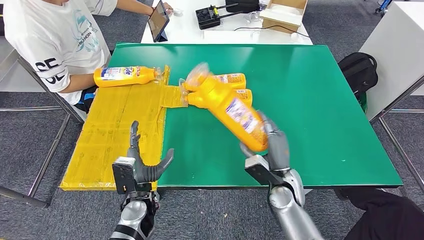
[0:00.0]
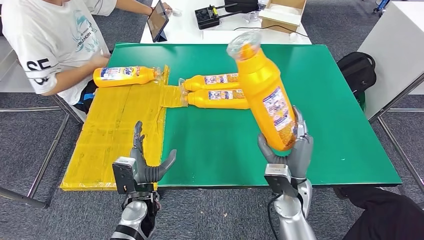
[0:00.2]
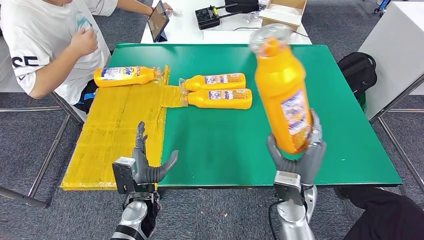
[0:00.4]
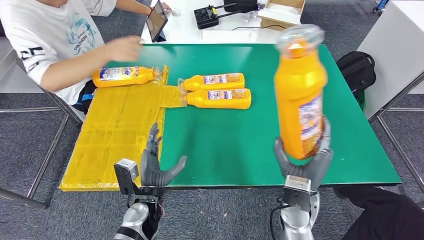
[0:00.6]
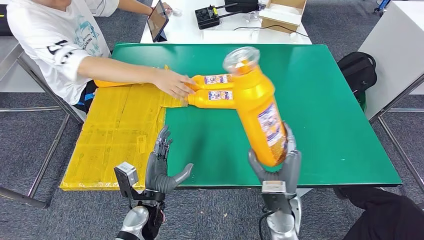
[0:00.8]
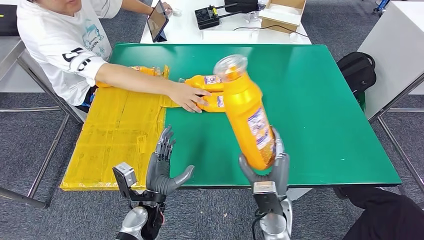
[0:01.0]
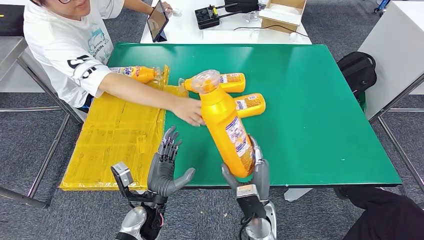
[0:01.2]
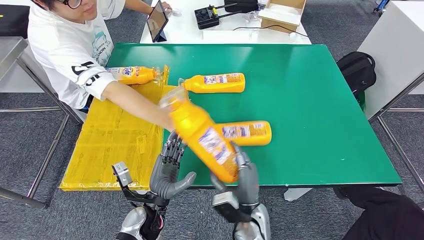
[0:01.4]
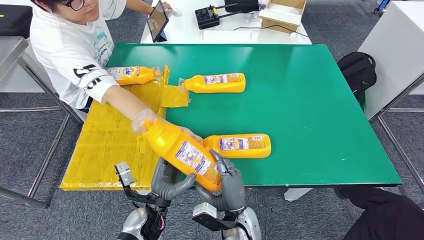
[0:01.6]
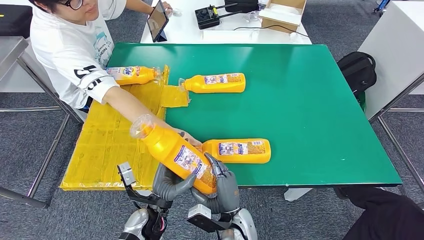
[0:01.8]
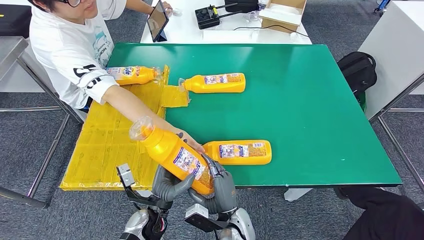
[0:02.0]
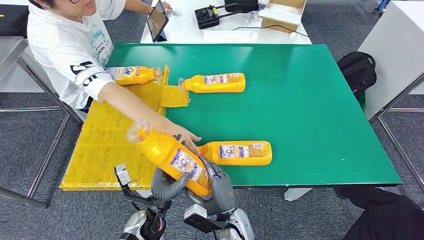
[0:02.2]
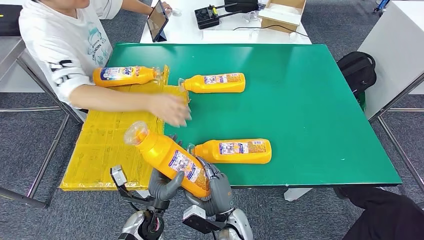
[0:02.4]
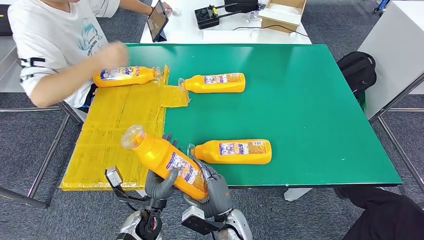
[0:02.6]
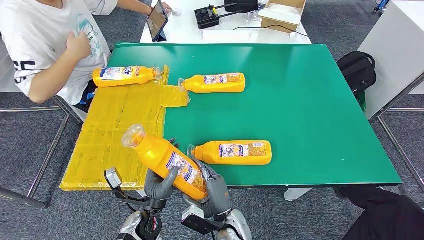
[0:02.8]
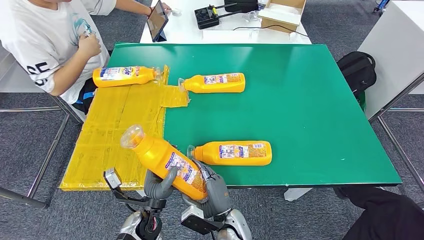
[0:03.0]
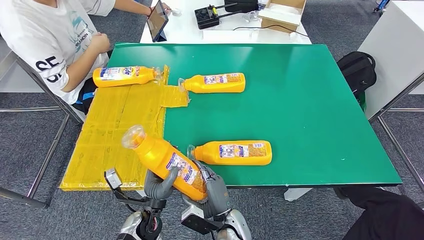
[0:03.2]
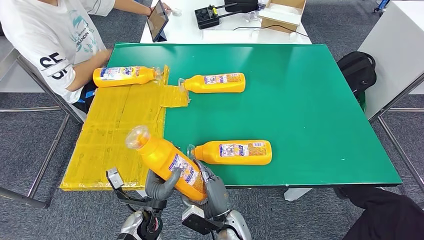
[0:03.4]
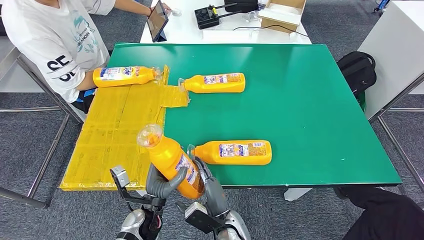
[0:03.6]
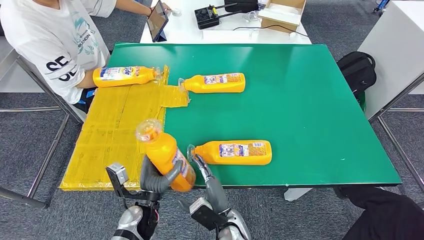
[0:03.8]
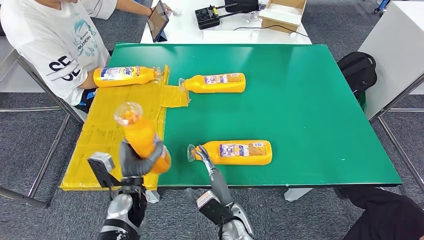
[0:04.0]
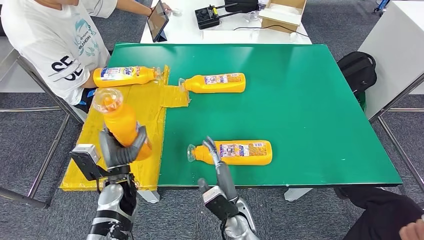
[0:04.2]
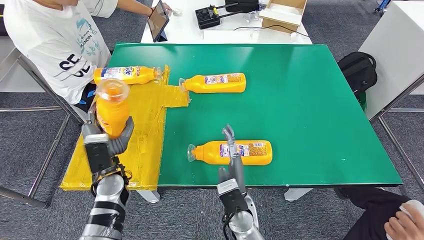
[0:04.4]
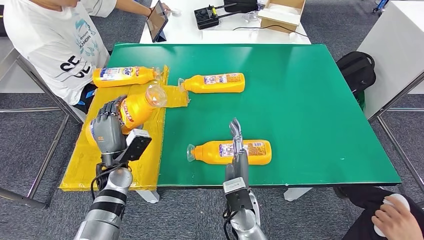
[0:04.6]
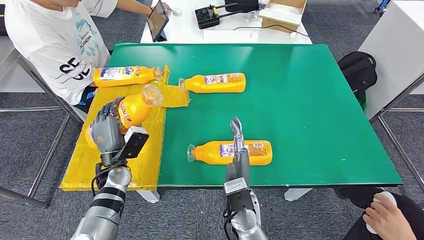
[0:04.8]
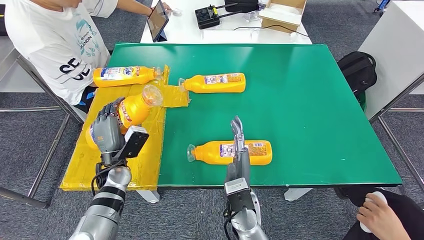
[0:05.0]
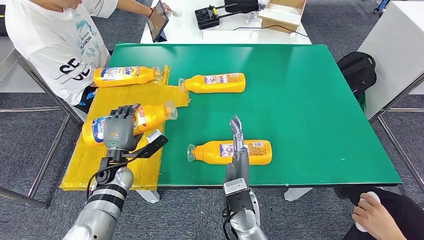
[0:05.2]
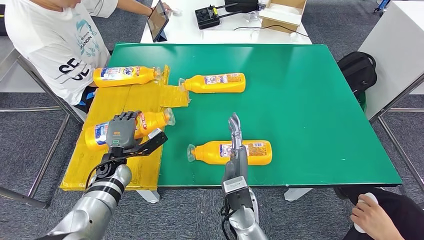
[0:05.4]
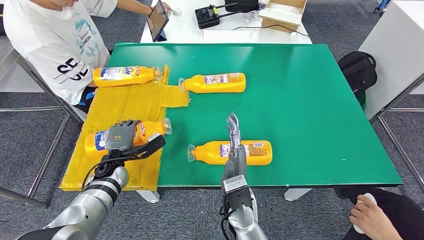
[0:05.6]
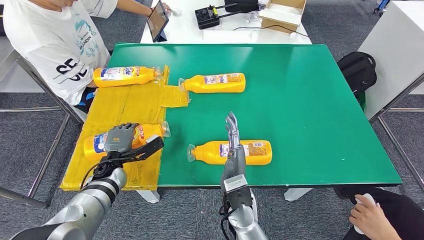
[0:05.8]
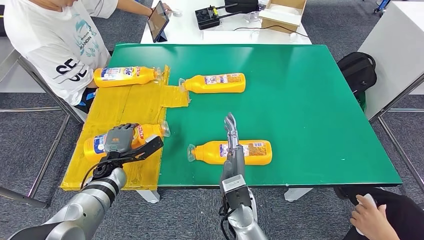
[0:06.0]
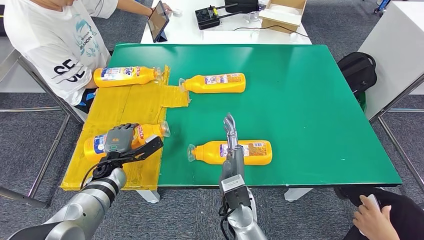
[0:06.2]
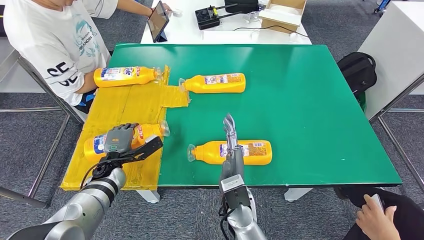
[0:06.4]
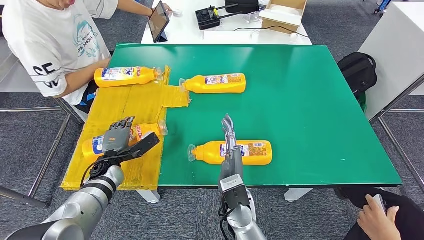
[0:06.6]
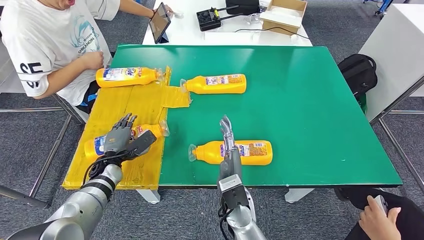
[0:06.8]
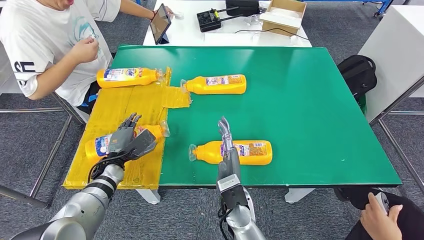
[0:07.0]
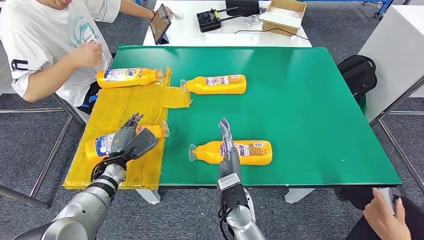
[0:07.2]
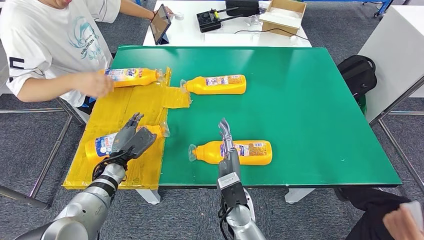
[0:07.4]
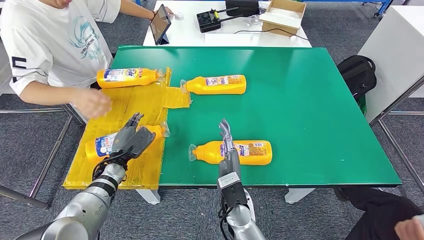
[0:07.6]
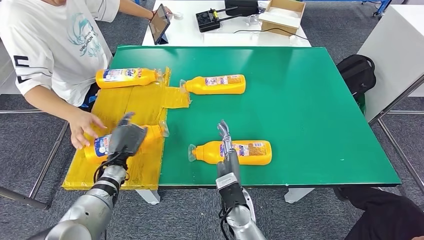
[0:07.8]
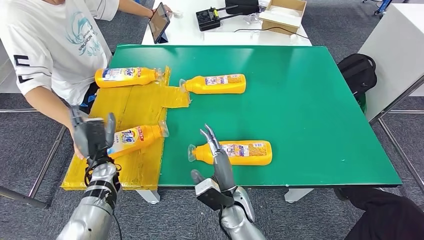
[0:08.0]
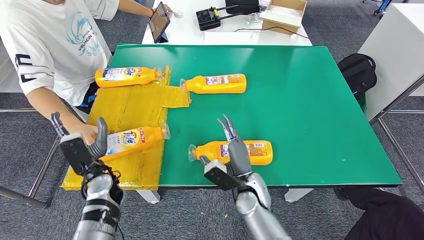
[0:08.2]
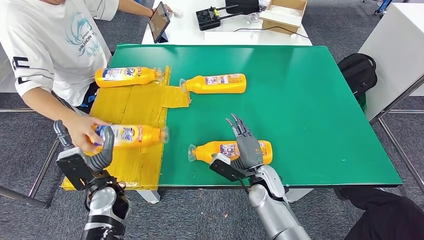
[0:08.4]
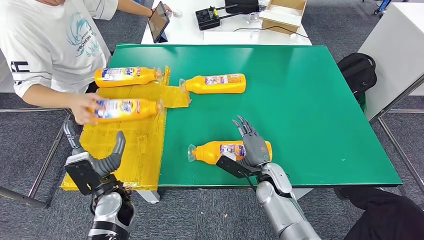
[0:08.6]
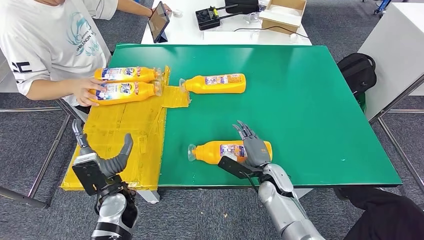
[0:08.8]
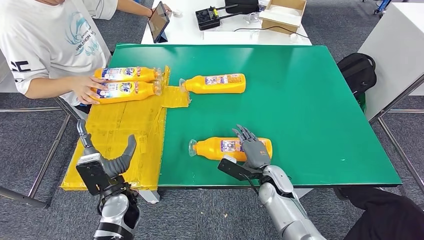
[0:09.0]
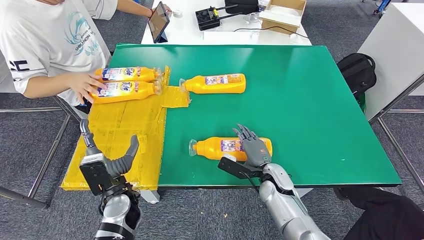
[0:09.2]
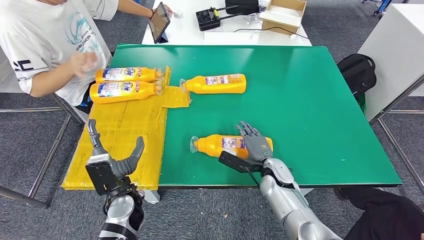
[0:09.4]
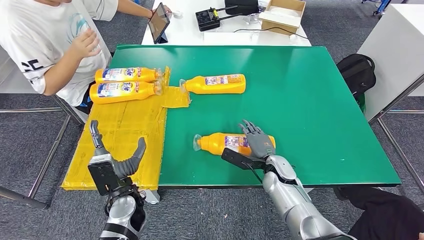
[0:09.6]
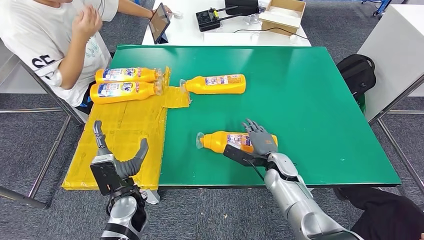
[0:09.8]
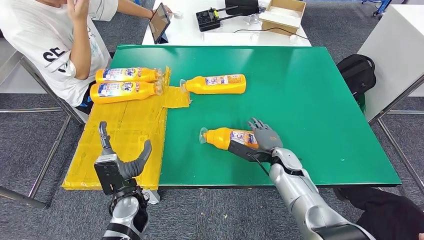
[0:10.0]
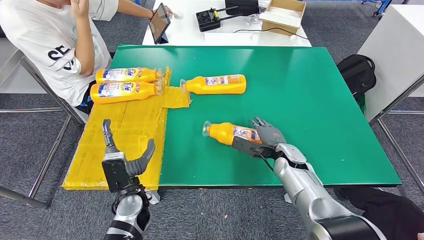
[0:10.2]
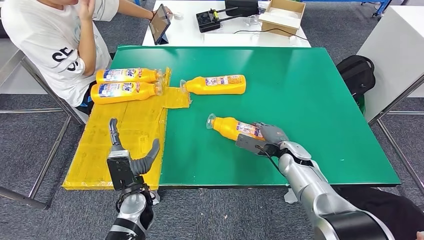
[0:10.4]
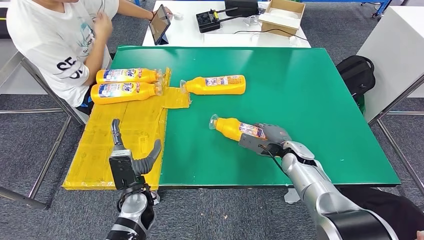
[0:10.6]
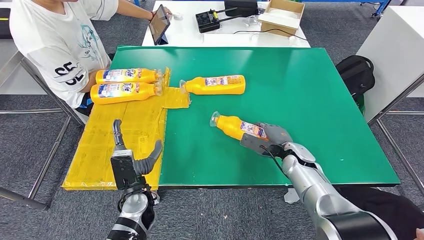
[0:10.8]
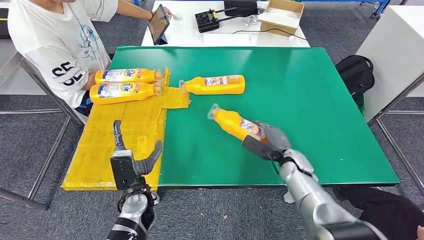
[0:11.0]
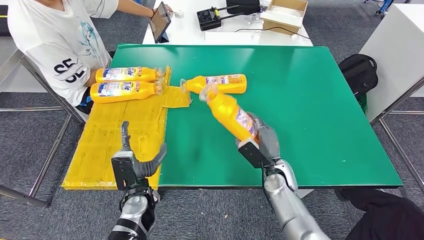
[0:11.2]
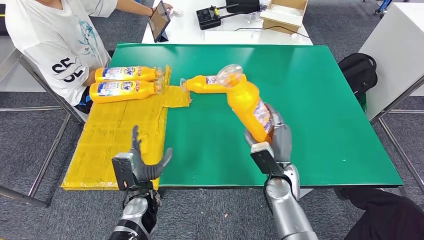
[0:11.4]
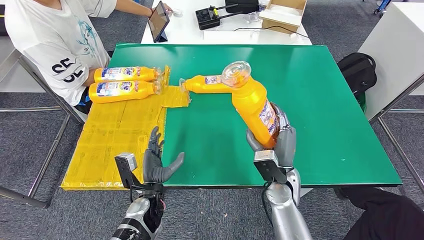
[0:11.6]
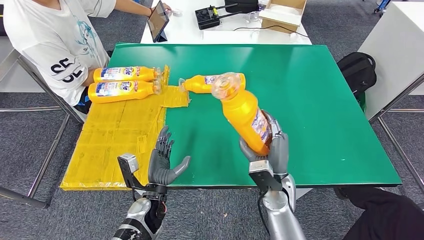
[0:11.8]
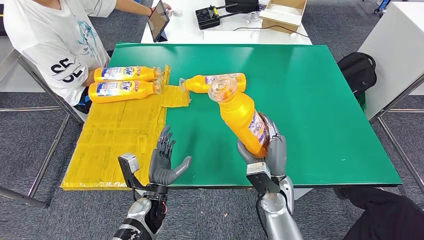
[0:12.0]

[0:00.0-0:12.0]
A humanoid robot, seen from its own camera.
Step, 0:00.8 to 0:06.4: Flip the bottle to face forward.
0:04.4 to 0:06.0: The left hand travels downward, to the left and forward by roughly 10 cm.

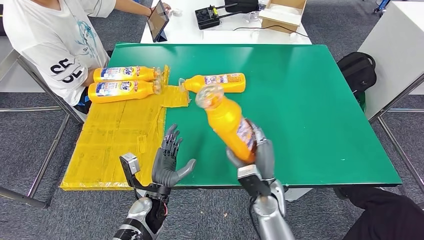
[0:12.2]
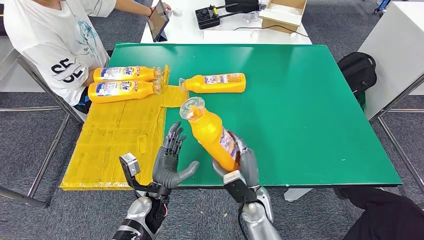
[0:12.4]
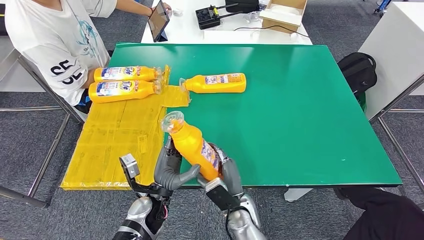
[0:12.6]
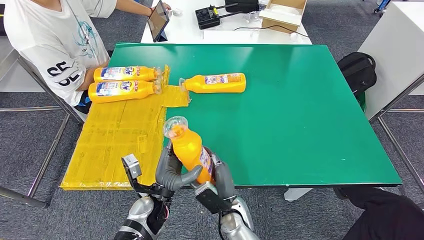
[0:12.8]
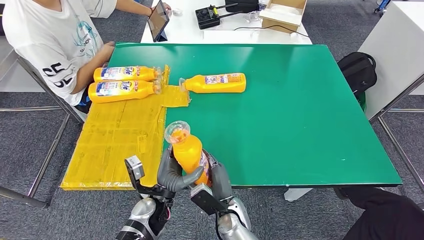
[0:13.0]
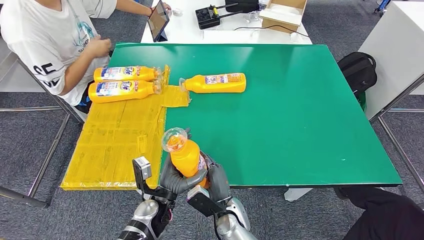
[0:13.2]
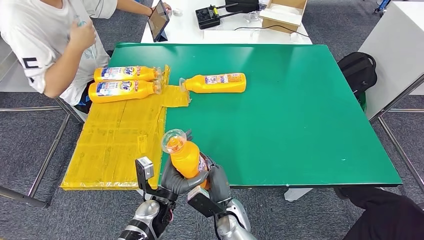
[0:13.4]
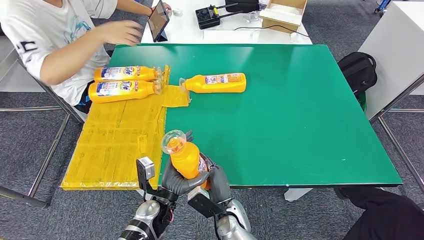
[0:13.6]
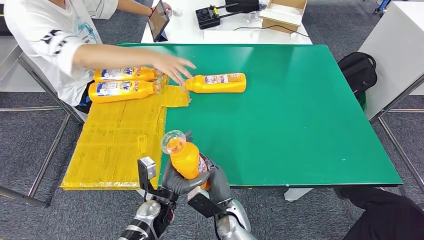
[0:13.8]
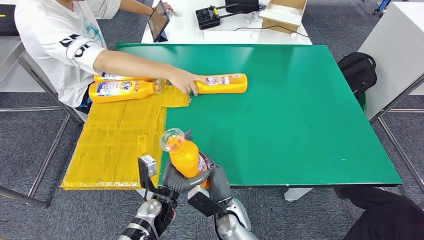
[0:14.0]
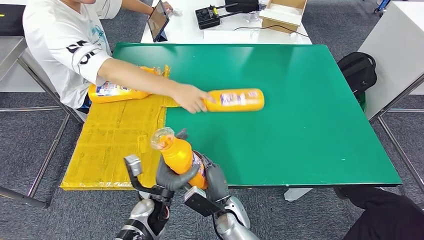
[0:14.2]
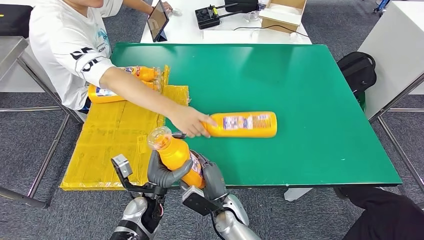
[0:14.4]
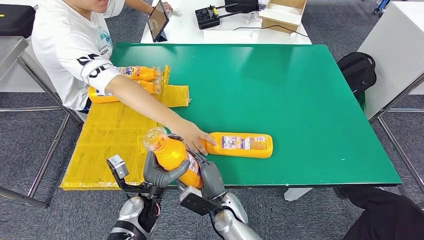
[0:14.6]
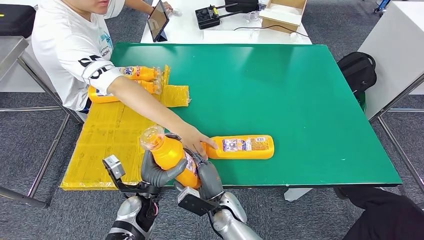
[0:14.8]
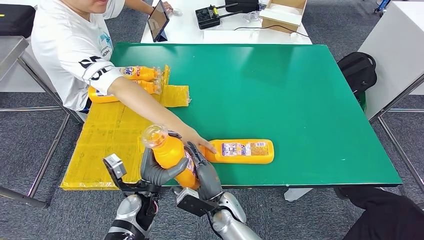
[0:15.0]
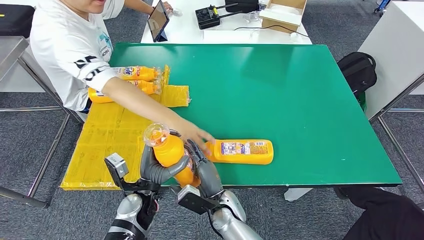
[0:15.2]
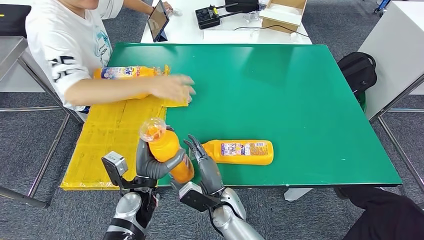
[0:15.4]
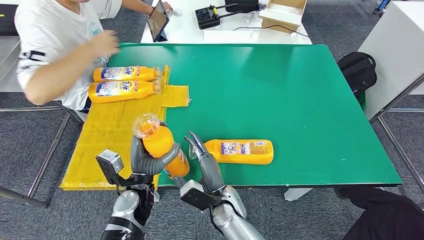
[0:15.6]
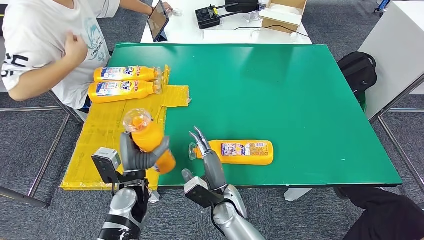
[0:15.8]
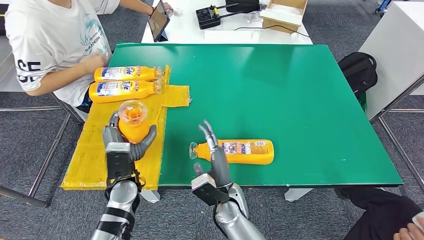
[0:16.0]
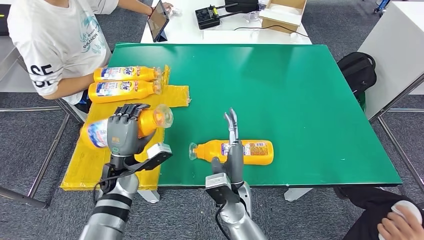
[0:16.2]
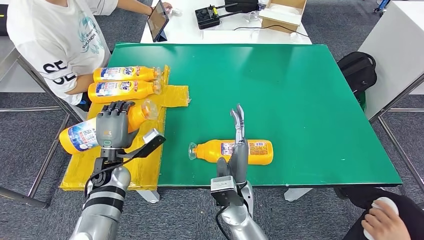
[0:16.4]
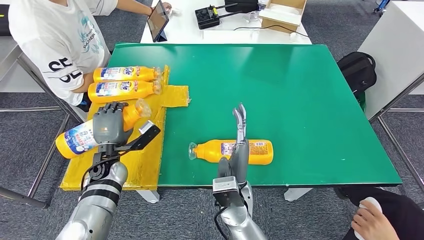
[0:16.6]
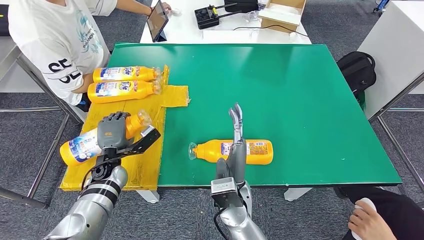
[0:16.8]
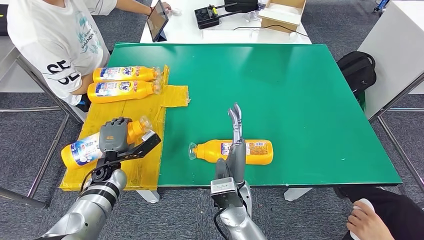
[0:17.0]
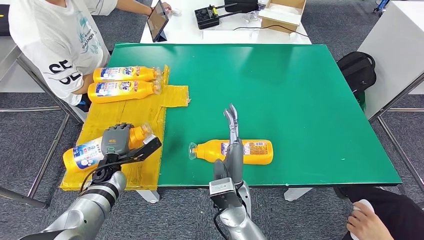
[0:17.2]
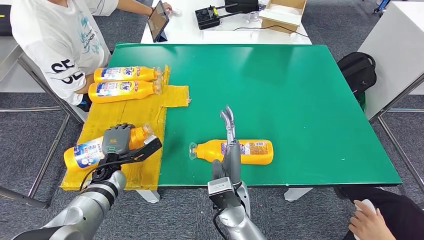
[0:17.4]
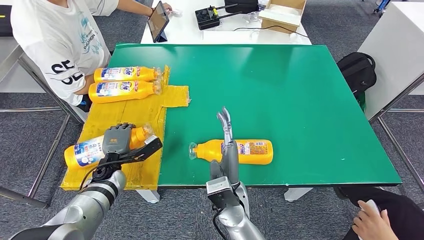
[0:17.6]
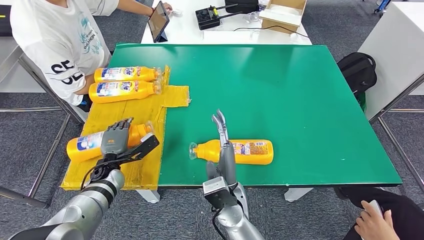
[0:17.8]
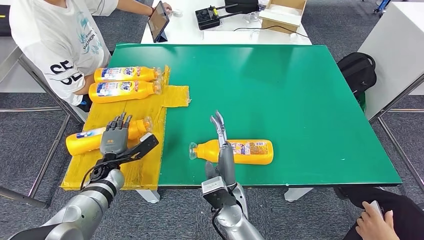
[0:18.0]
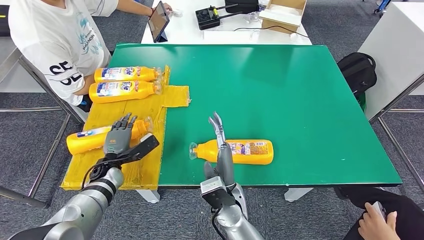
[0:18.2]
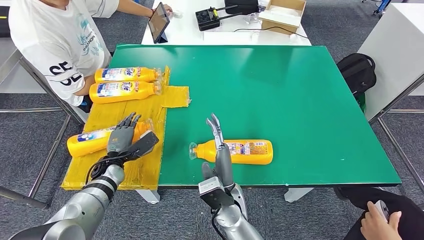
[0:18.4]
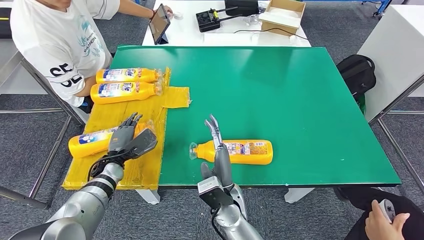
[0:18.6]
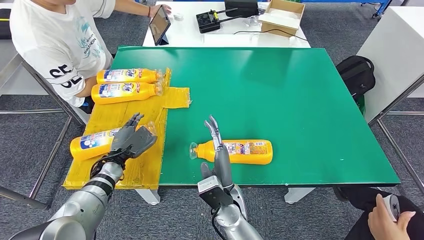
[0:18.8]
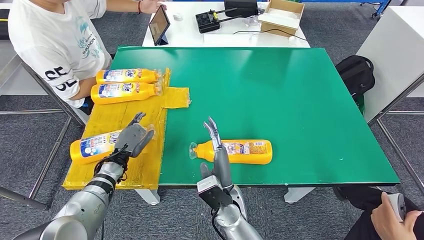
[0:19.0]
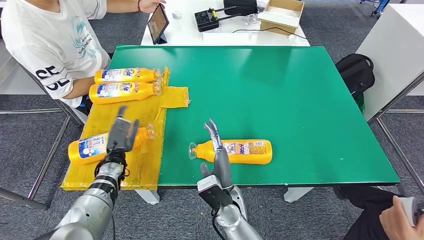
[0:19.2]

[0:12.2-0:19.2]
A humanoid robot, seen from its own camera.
Step, 0:12.2 to 0:14.6: Pick up the bottle from the table.
Step, 0:14.8 to 0:17.8: Flip the bottle to face forward.
0:12.2 to 0:13.6: The right hand heads to the left and downward, covering about 10 cm.
0:16.4 to 0:17.8: The left hand heads downward, covering some 5 cm.
